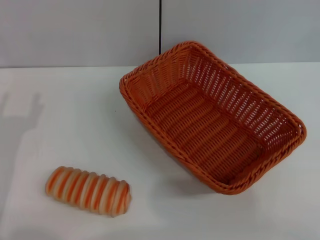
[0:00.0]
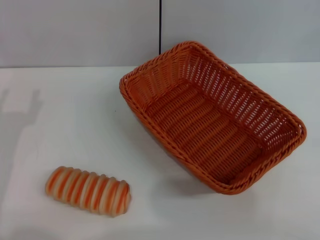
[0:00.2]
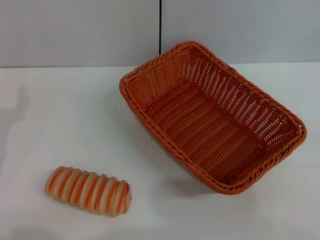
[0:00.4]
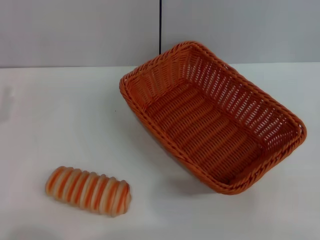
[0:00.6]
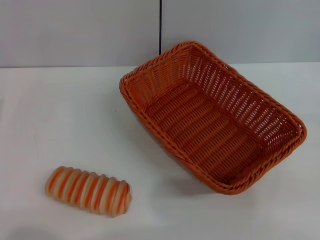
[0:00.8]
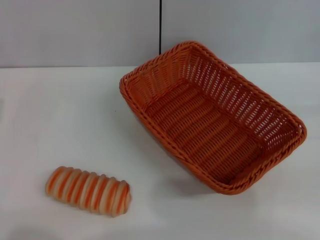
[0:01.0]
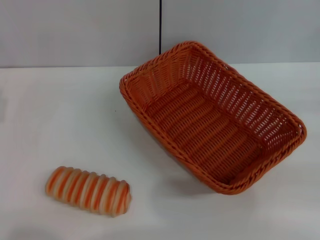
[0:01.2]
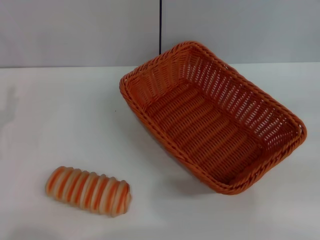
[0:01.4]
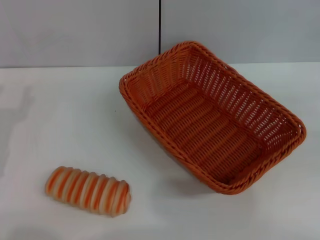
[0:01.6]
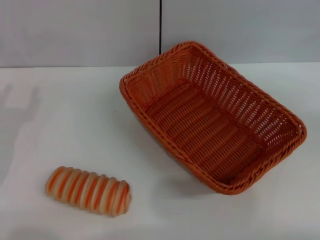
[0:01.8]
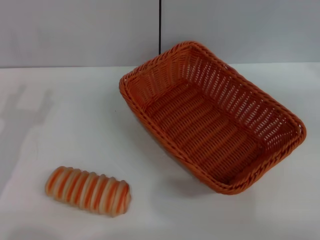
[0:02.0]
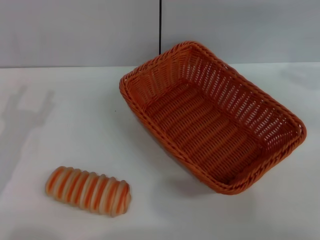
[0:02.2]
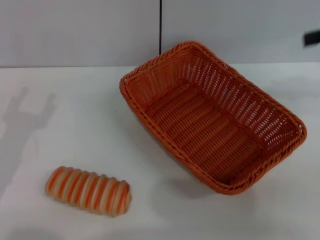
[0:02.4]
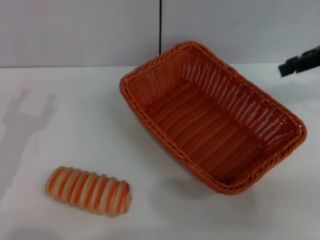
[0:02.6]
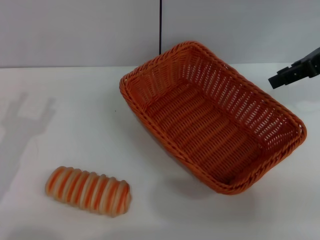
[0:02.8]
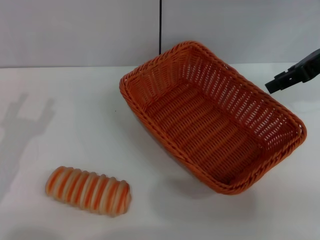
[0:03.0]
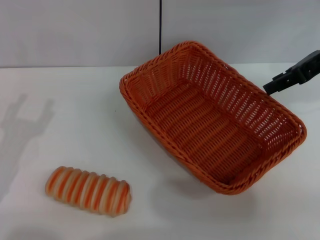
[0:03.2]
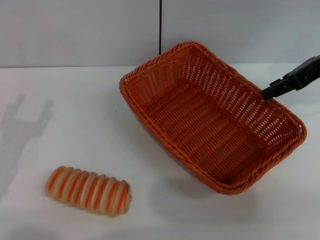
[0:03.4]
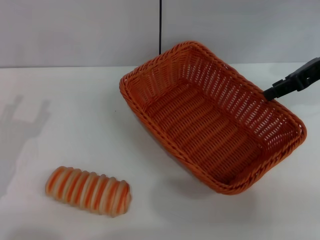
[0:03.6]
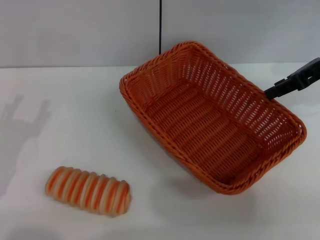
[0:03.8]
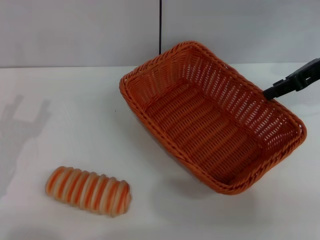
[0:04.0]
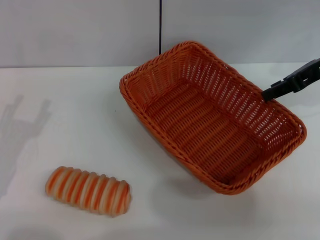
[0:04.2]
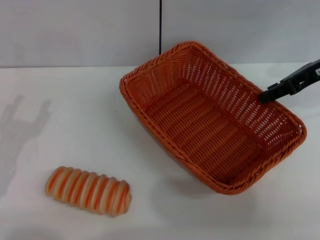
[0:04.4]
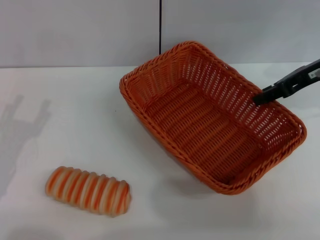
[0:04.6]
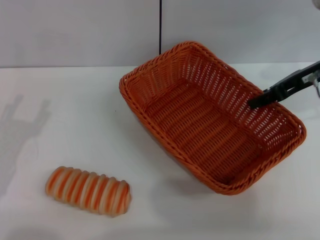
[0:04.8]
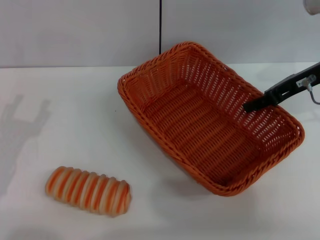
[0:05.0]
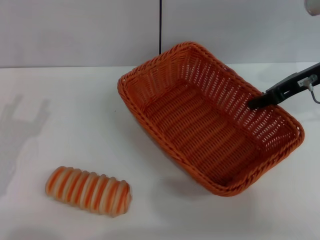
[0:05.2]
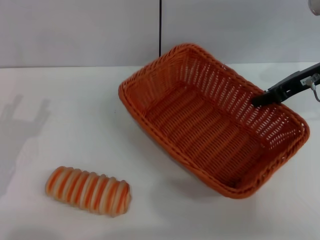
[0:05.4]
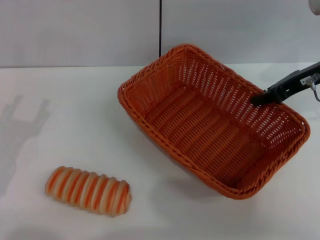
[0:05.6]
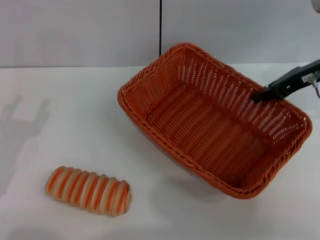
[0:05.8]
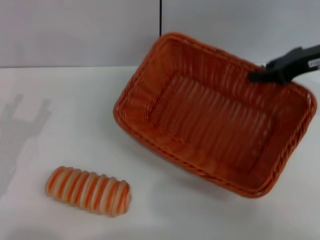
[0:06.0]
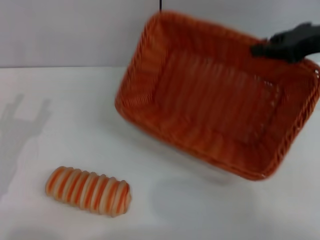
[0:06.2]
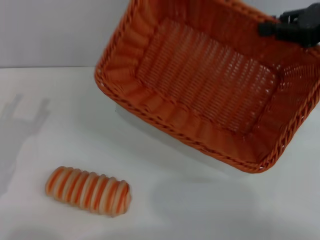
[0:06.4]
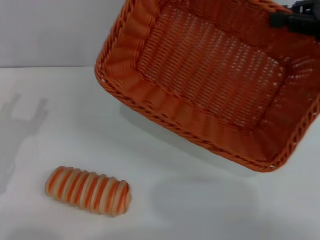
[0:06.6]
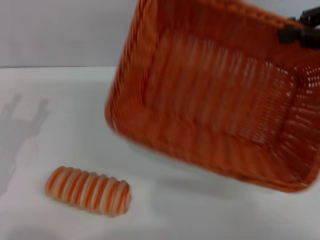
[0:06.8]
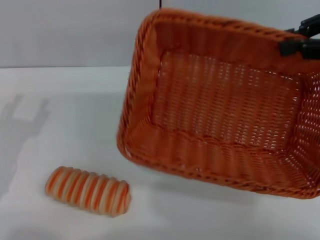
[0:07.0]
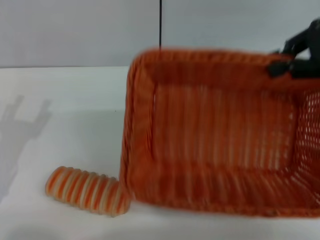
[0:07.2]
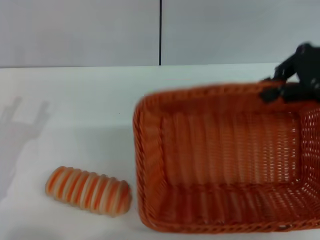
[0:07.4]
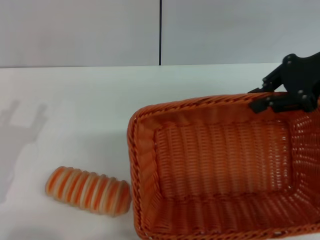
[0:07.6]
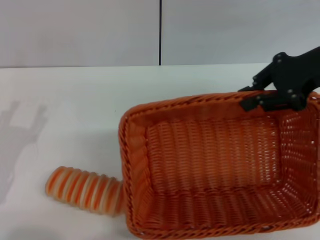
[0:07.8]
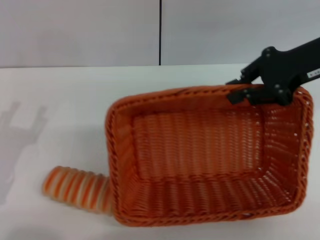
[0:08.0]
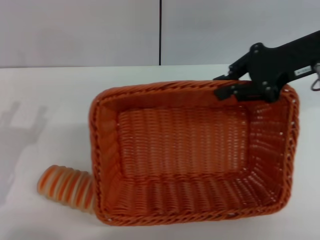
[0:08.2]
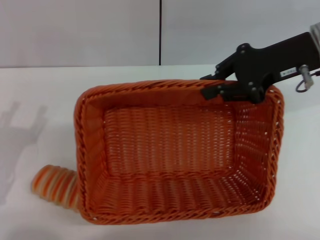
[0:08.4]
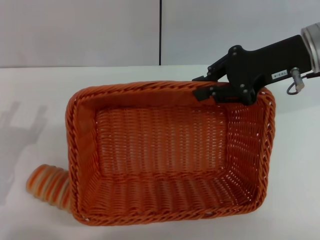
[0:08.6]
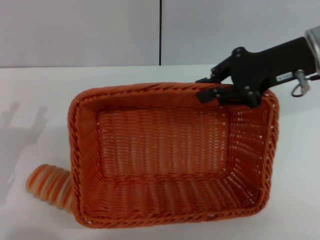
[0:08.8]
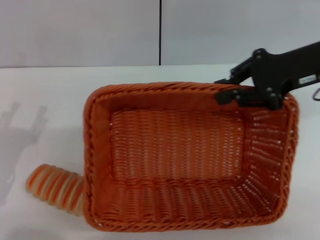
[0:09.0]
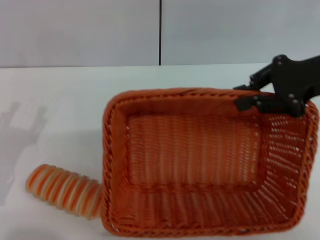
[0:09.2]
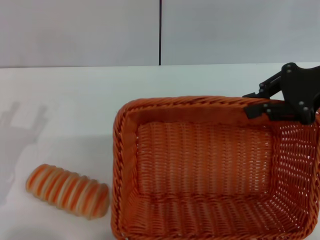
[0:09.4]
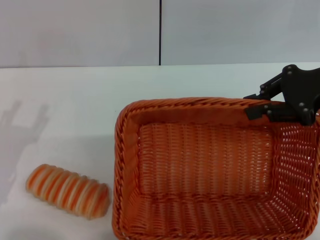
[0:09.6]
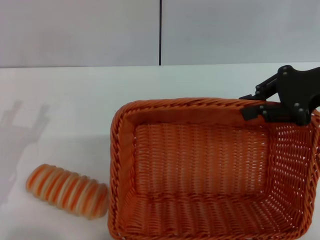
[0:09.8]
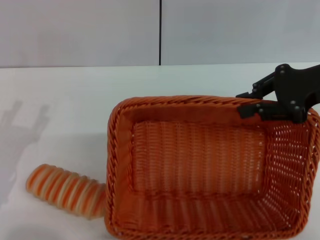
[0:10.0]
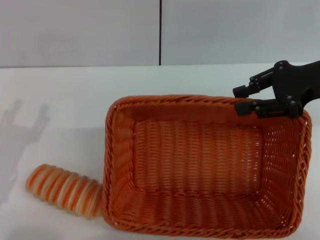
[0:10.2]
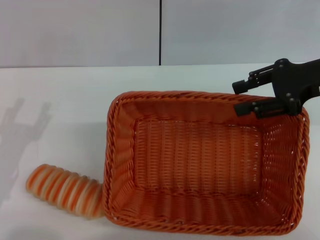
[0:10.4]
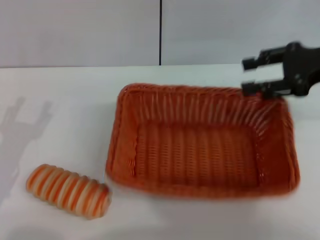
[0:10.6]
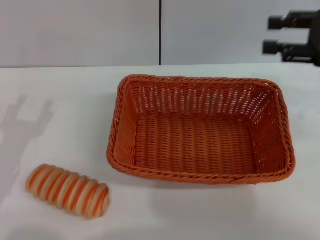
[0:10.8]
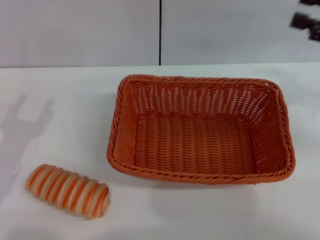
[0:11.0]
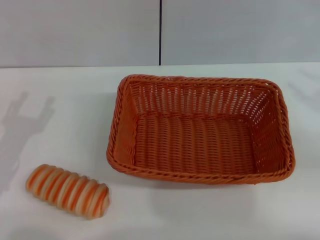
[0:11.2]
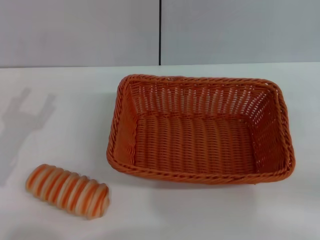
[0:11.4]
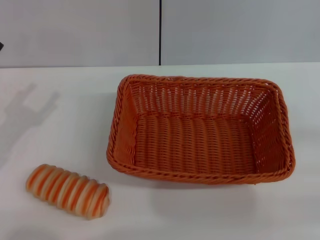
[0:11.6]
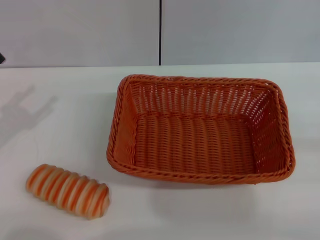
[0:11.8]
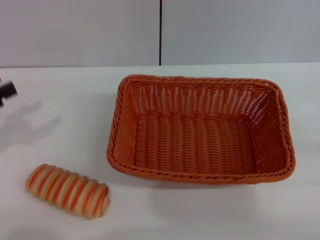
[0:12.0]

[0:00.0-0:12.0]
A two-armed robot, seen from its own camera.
Step, 0:00.0 to 0:06.2: Pick up the light basket with the right gripper.
Step, 0:06.4 to 0:10.6: Place the light basket in the center of view with the right gripper.
0:01.6 to 0:03.0: The right gripper is displaced to the left and forward by roughly 25 cm.
0:03.0 to 0:04.4: There are only small adjustments of the grippers.
0:04.4 to 0:06.0: The right gripper closes its fingers.
0:09.0 to 0:10.4: The grippers move only a little.
0:10.4 to 0:12.0: The right gripper travels backward, to the right and downward by roughly 25 cm, and opens up. The left gripper goes some 10 cm to the left and upward.

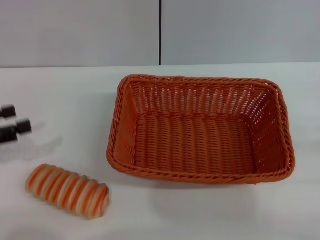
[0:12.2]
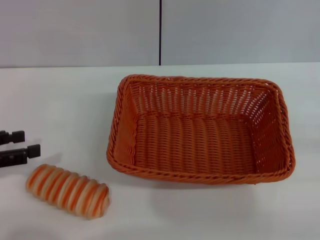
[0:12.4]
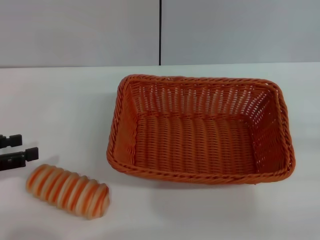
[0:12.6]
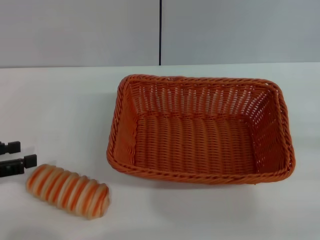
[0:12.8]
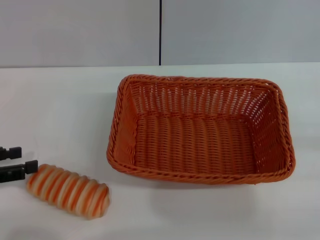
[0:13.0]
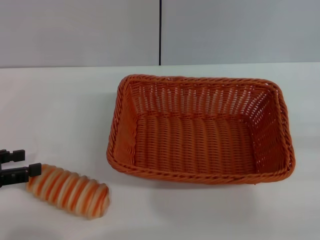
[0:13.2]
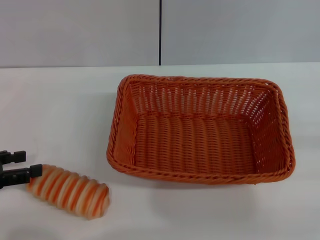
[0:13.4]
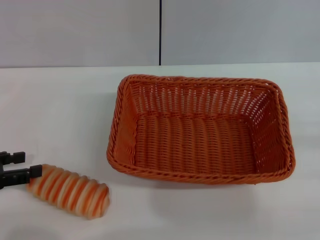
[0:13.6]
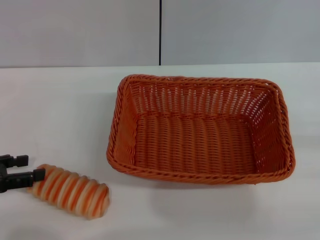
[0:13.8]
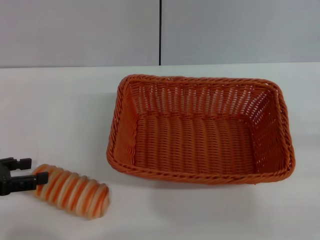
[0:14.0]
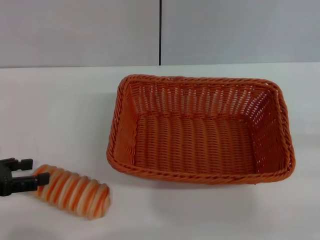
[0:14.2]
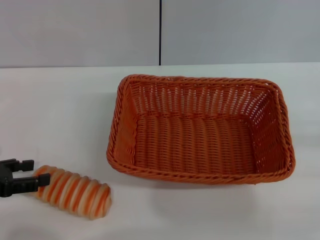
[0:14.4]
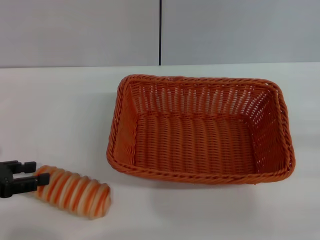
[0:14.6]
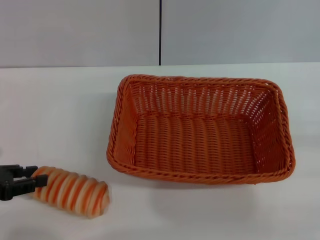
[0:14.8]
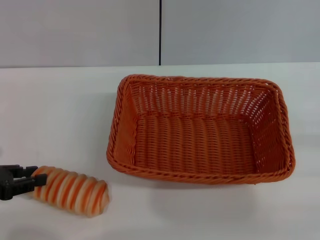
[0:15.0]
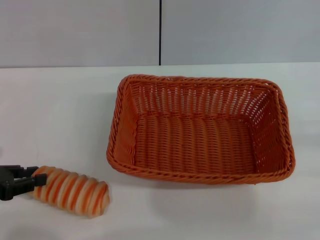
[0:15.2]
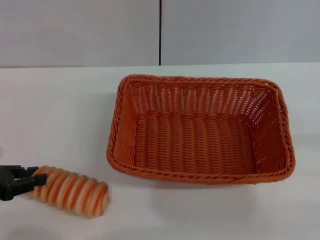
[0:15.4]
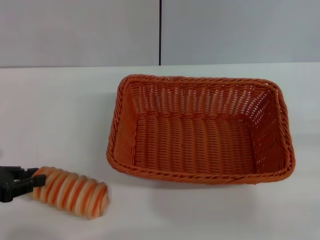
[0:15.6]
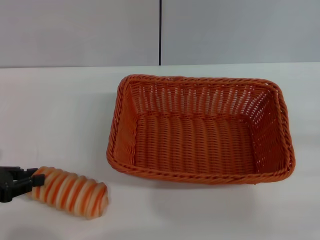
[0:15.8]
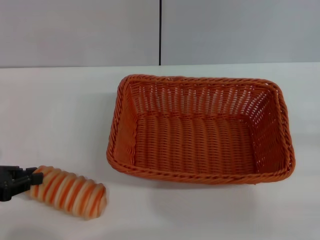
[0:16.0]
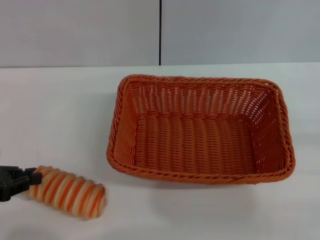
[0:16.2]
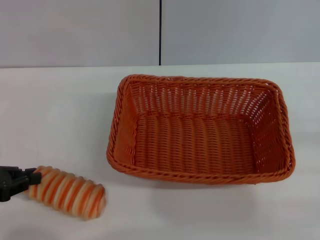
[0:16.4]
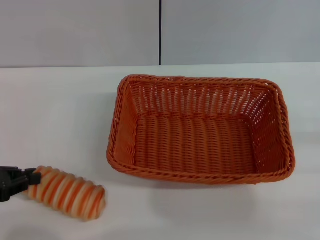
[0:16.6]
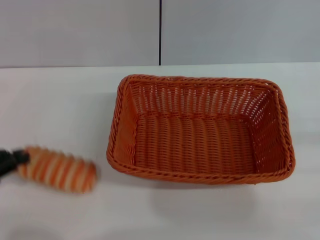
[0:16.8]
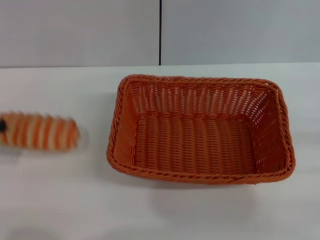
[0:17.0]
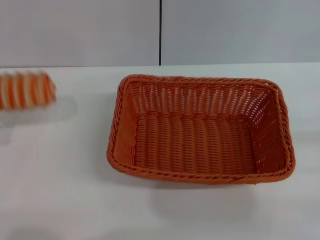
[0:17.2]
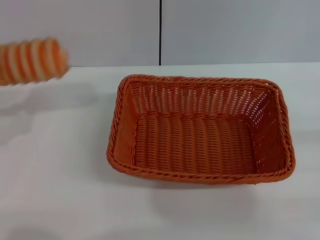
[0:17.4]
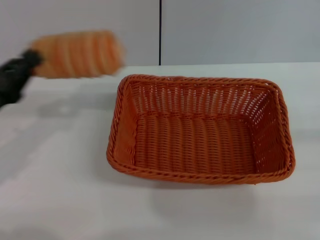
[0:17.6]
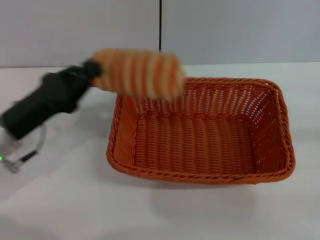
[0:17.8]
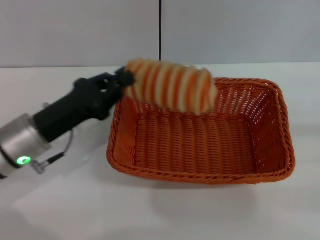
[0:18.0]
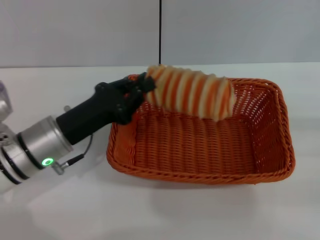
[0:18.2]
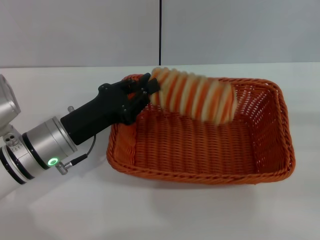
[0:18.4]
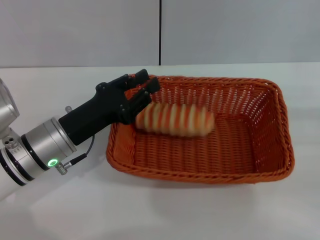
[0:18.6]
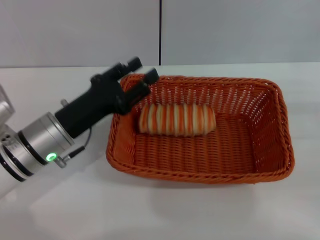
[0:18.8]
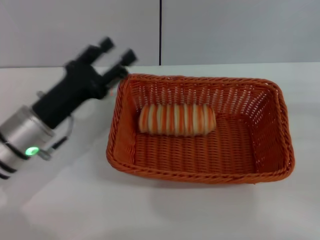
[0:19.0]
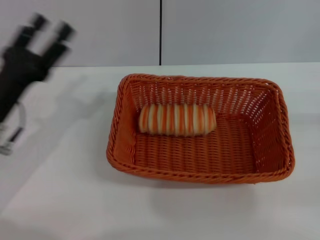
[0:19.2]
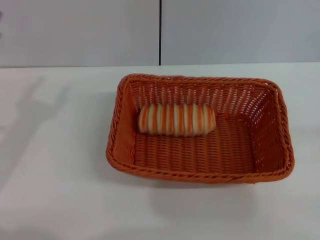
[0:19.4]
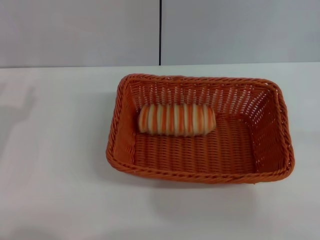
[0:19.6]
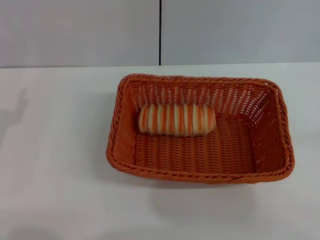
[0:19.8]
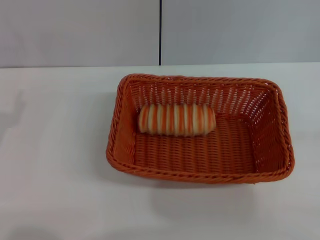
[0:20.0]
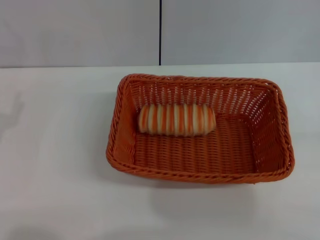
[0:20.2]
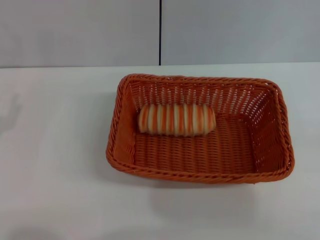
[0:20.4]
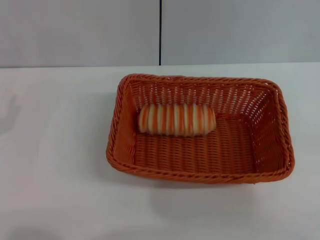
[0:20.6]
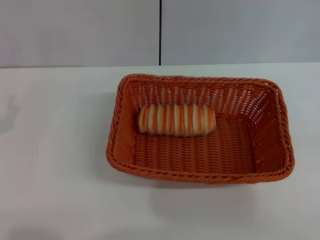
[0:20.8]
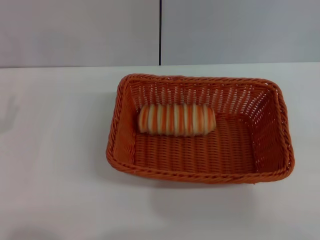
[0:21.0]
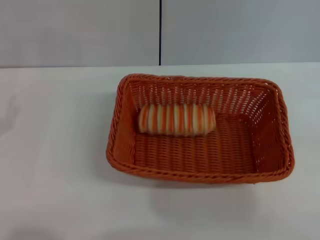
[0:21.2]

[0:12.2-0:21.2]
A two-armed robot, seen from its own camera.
Step, 0:12.2 to 0:16.8: Pick up the long bread with the left gripper.
Step, 0:17.2 to 0:19.0: Place the long bread into the light basket with the left gripper.
0:12.2 to 0:13.8: There are only small adjustments of the grippers.
0:13.8 to 0:15.2: The left gripper closes its fingers.
0:15.2 to 0:16.6: Both grippers stay about where they are.
0:16.6 to 0:18.2: The right gripper shifts by some 5 cm. The left gripper heads to the right, covering some 15 cm.
0:18.2 to 0:19.8: The left gripper moves to the left and backward, roughly 15 cm, and opens its fingers. Meanwhile the right gripper changes place by some 5 cm.

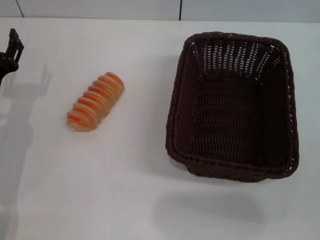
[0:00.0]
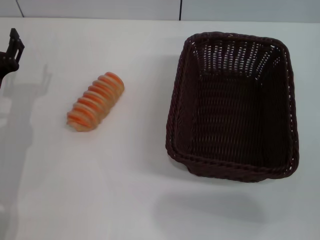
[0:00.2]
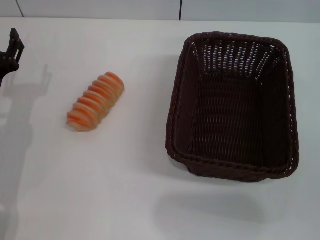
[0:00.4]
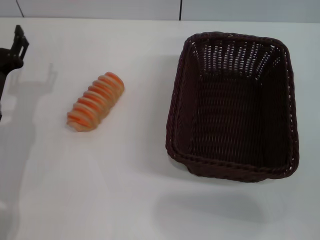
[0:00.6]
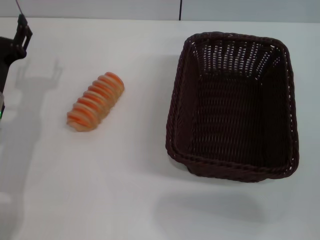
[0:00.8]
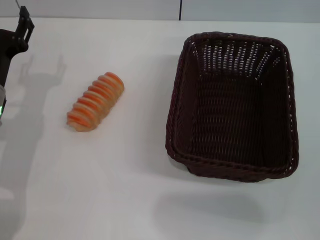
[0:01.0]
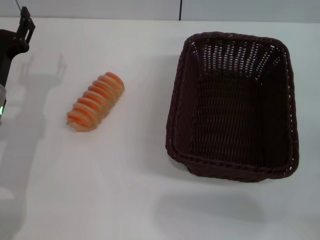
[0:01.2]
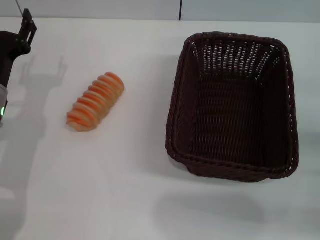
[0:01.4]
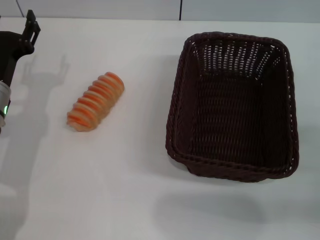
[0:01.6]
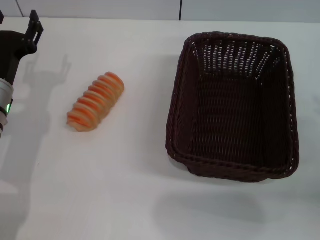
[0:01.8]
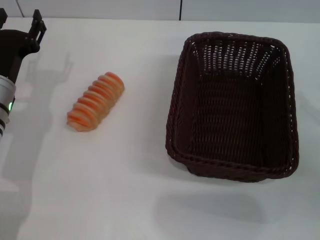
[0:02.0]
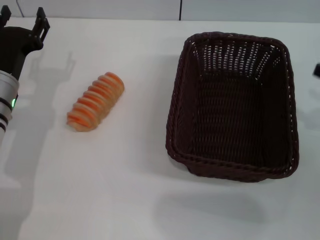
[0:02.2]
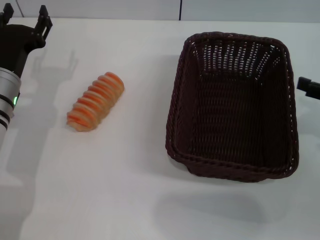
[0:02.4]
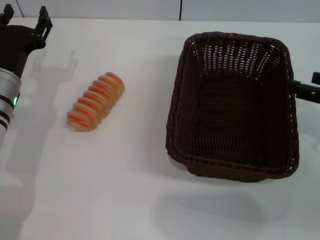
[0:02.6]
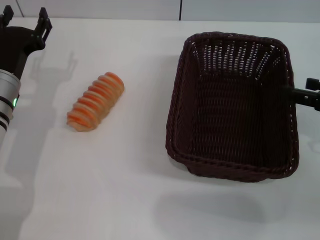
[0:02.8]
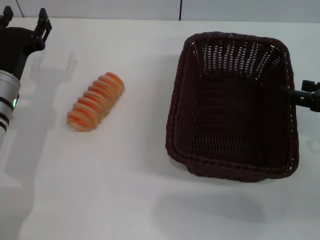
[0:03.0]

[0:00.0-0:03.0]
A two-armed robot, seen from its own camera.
0:01.6 to 0:03.0: The right gripper moves forward, upward and to the left, roughly 10 cm.
